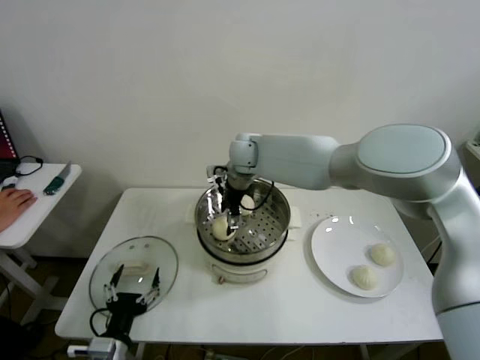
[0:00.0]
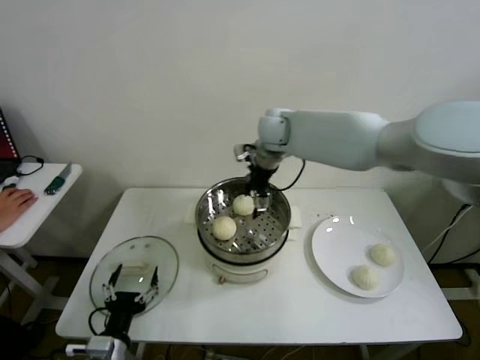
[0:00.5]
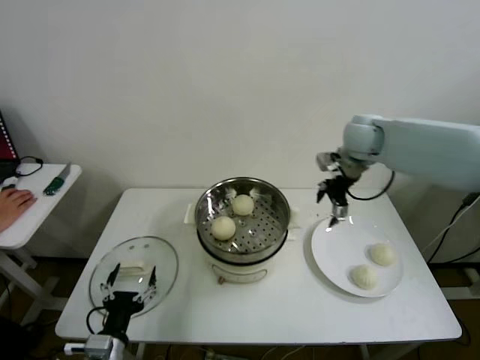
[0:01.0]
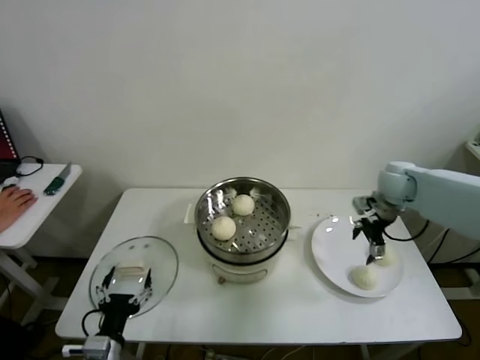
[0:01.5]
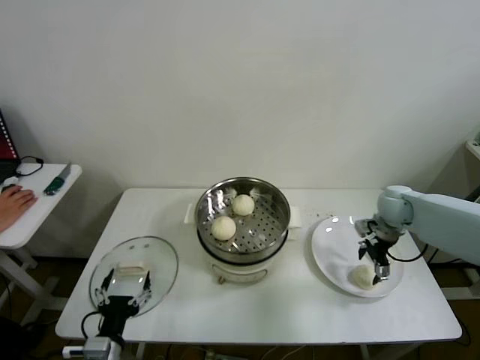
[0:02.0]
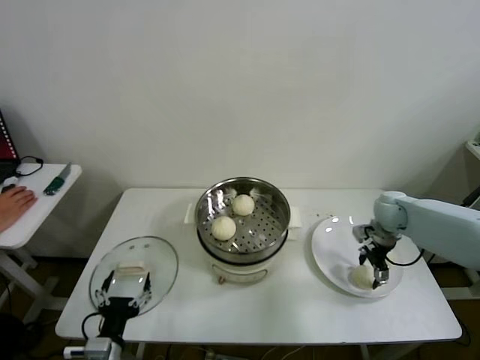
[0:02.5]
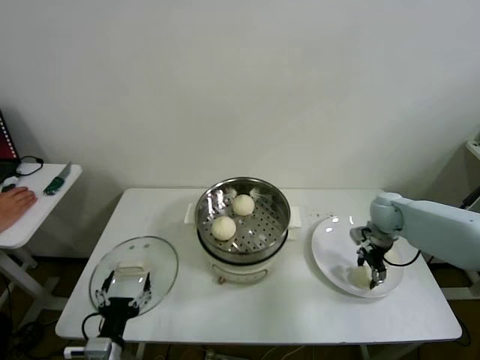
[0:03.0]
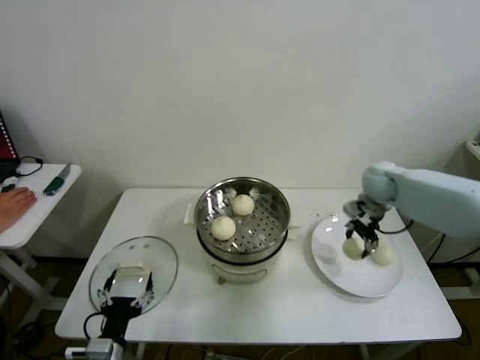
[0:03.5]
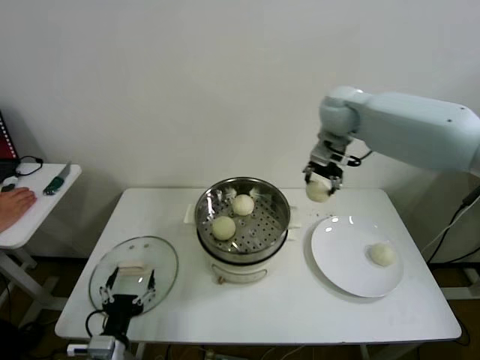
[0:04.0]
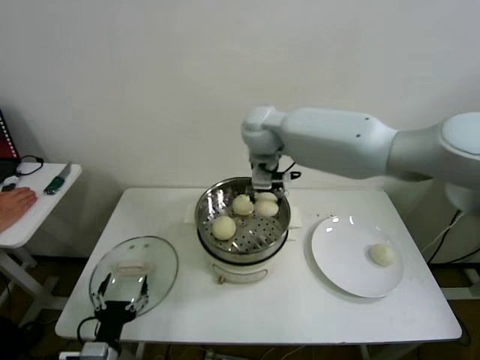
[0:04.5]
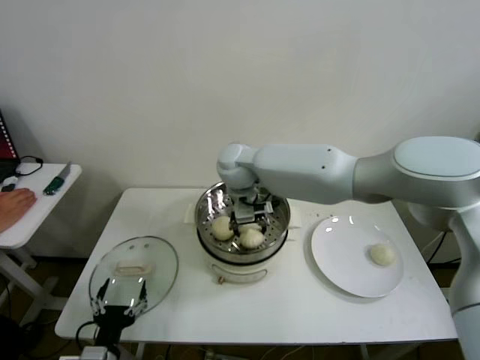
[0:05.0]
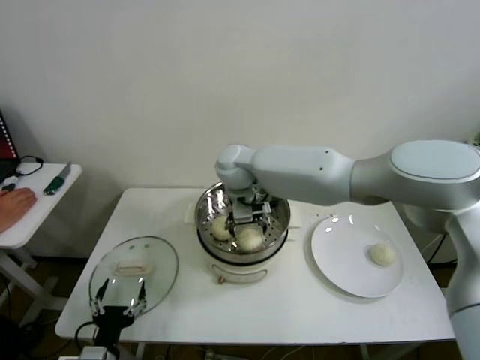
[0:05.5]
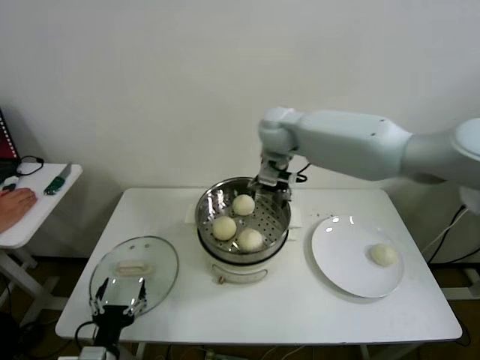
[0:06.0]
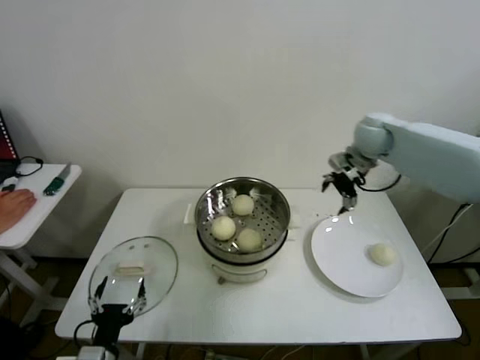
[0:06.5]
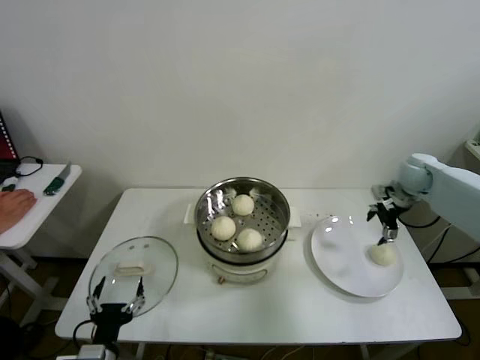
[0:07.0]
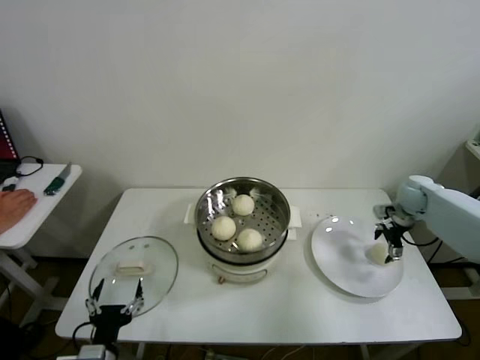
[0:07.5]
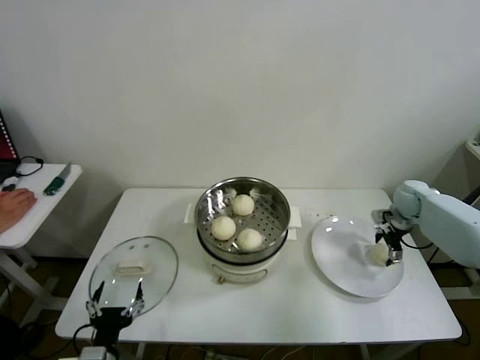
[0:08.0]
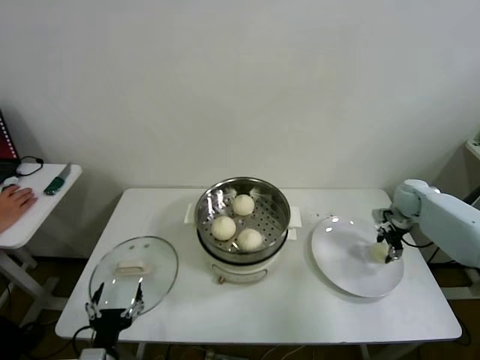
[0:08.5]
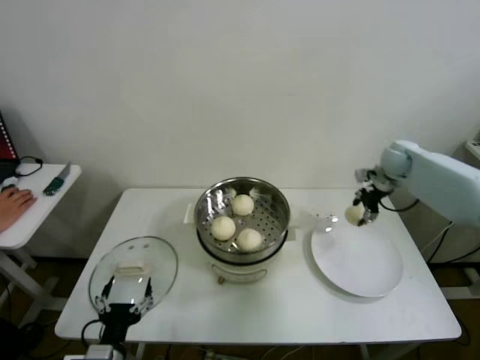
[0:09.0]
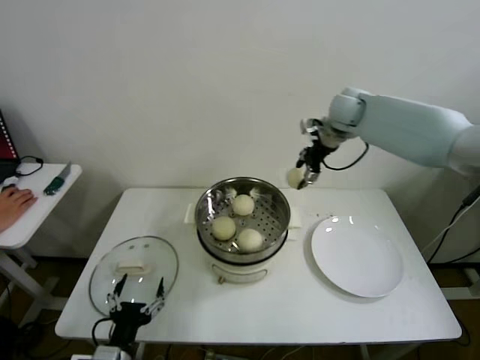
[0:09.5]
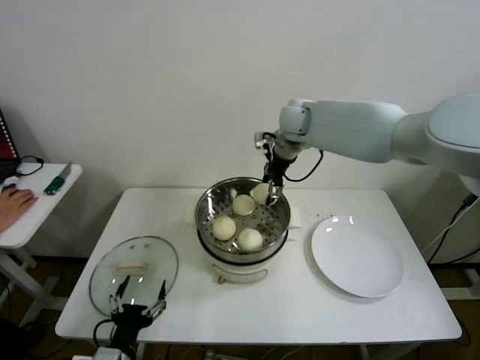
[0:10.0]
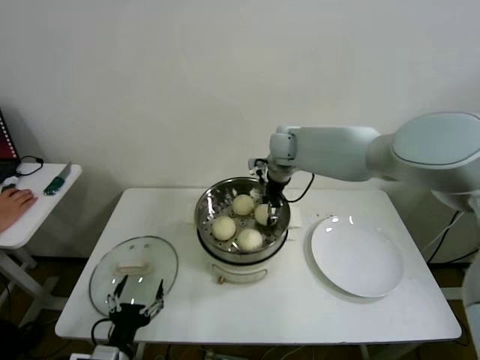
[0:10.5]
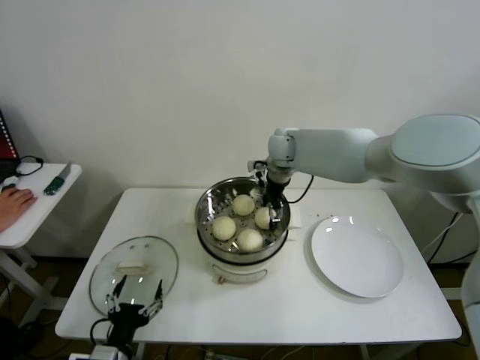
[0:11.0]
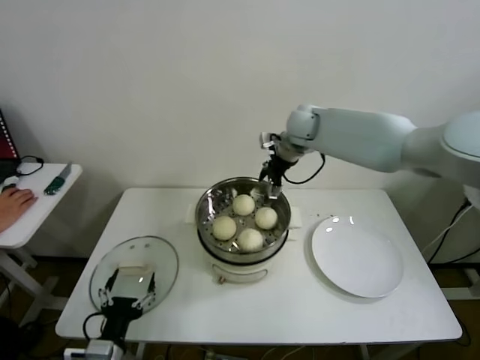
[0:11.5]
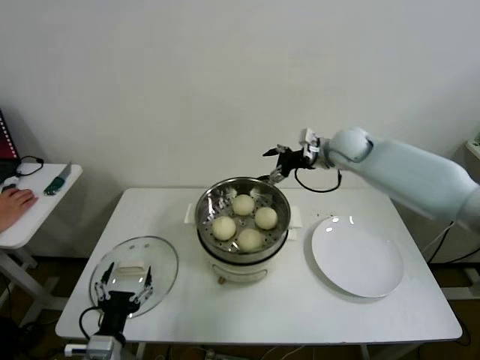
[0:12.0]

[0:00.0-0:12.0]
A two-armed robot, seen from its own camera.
Step, 0:00.0 to 0:02.5: Grasp the baozi in the plate with right gripper.
Step, 0:03.0 to 0:05.0: Place the baozi on the steamer with right gripper.
Step, 0:05.5 to 0:08.0: Grasp the baozi in the plate with right gripper.
Step, 0:08.5 to 0:10.5: Place the baozi on the steamer with right gripper.
0:00.0 to 0:02.0: The right gripper moves to the right, approximately 35 cm.
0:02.0 to 0:04.0: The right gripper moves upward and to the left, roughly 30 cm, and closes.
0:04.0 to 0:06.0: The right gripper travels to the left by some 10 cm, and opens up.
0:06.0 to 0:08.0: The right gripper moves to the right and downward, about 40 cm.
0:08.0 to 0:10.0: The right gripper shifts approximately 40 cm to the left and upward, and closes.
0:10.0 to 0:12.0: The right gripper is displaced to the right and downward by roughly 15 cm, and opens its fingers.

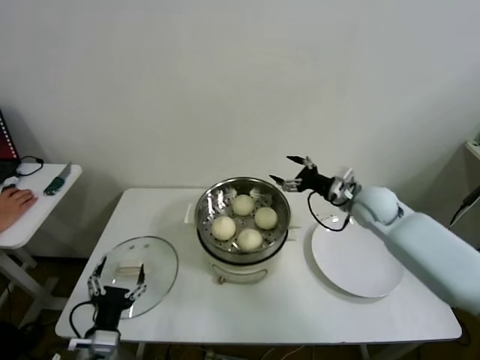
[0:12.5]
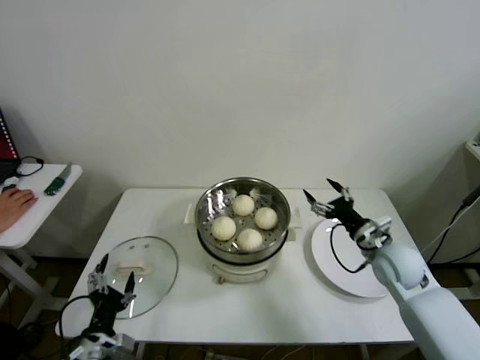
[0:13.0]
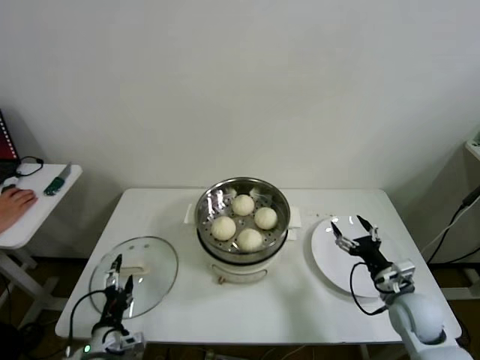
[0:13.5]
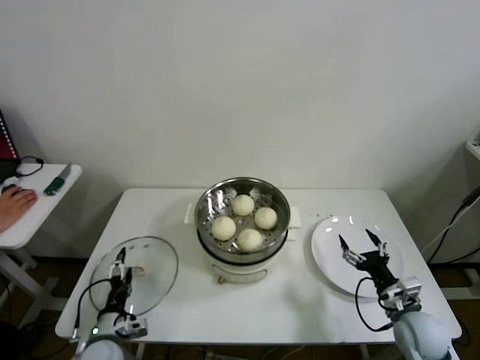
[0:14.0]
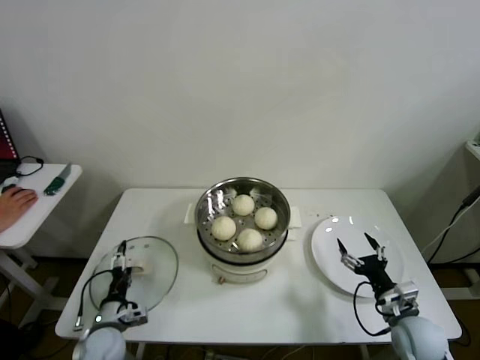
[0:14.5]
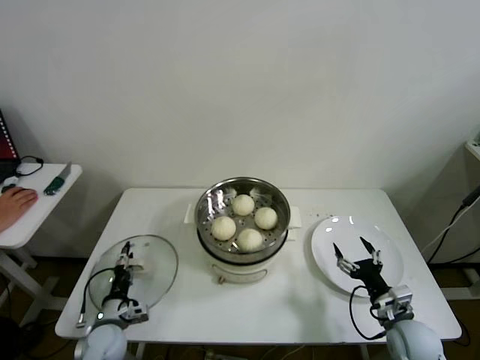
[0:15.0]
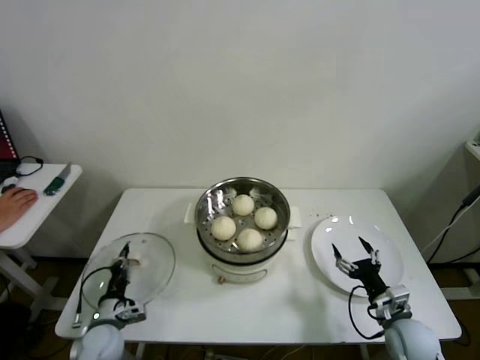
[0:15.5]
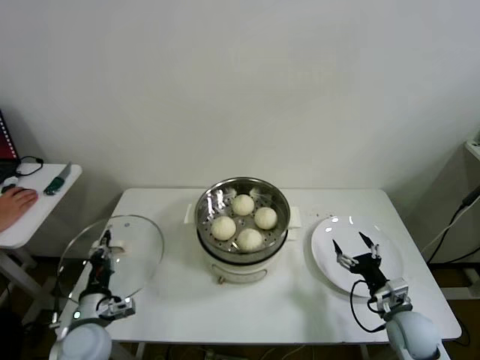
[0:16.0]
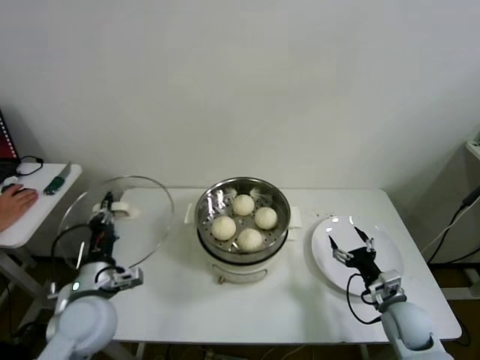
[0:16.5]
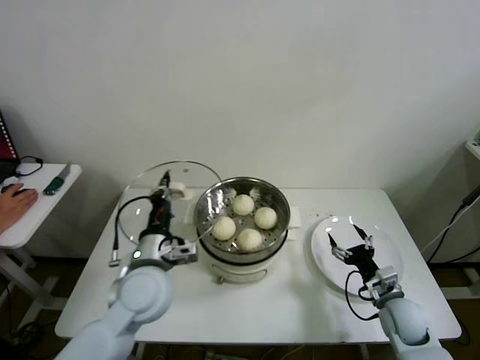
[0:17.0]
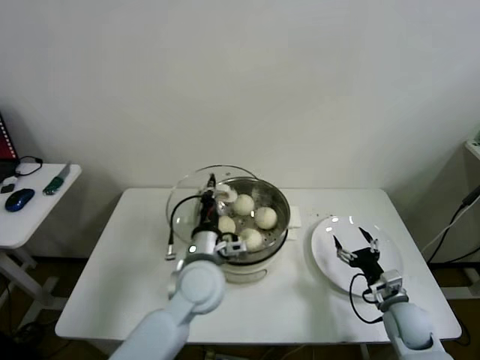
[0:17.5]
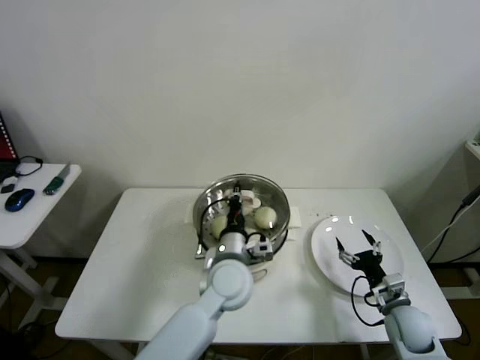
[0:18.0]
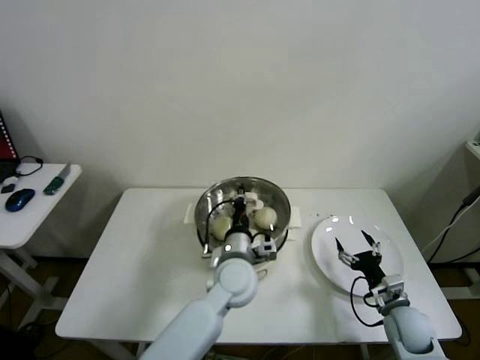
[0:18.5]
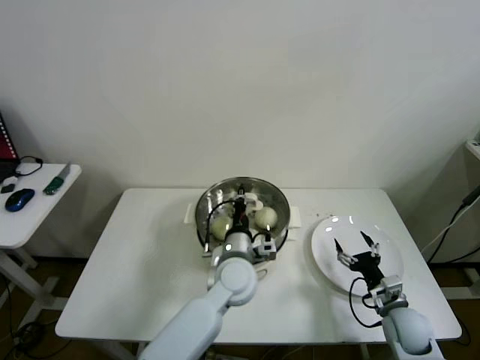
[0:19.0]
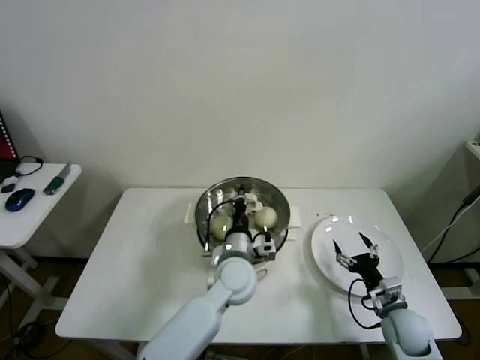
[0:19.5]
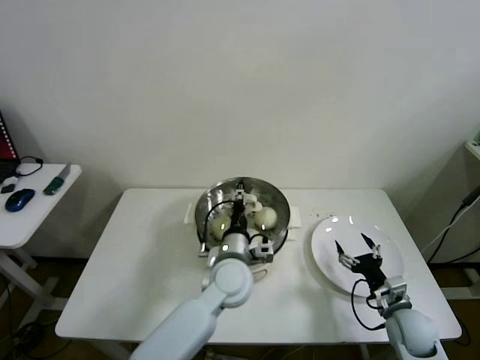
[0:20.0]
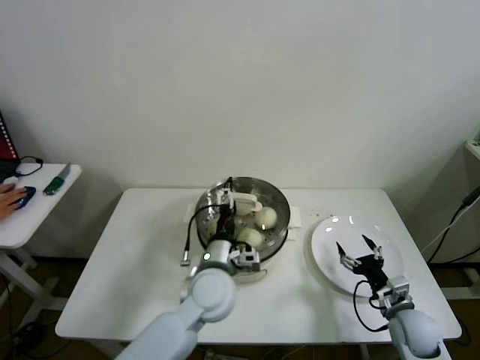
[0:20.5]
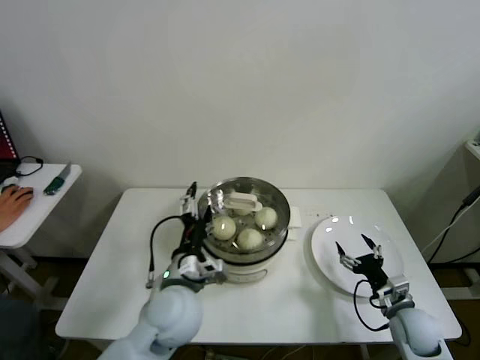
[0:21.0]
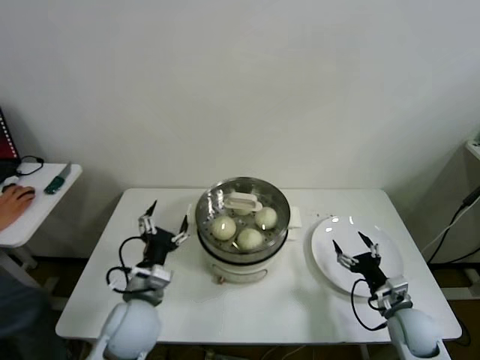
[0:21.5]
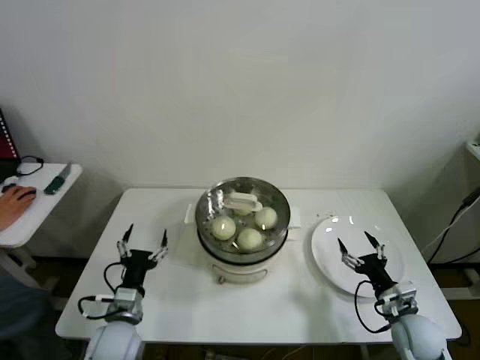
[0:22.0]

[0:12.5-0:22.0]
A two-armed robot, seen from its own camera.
Step, 0:12.5 to 0:15.0: Grasp the pot lid with left gripper.
Step, 0:15.5 to 0:20.0: Place the pot lid on the steamer with left gripper.
0:12.5 to 0:14.5: The left gripper travels downward, forward and to the left by roughly 15 cm. The right gripper travels backward and downward by some 30 cm.
0:14.5 to 0:16.5: The left gripper heads upward, covering about 20 cm, and closes.
0:16.5 to 0:18.0: The left gripper heads to the right, covering about 25 cm.
0:18.0 to 0:20.0: The left gripper opens up.
0:20.0 to 0:22.0: The left gripper is displaced to the left and backward by roughly 25 cm, and opens its fingers.
